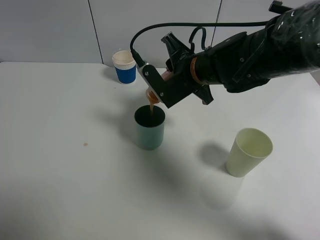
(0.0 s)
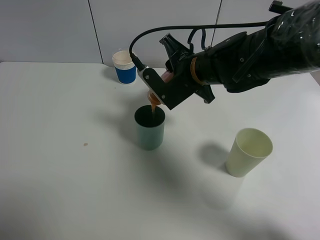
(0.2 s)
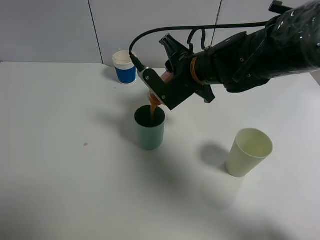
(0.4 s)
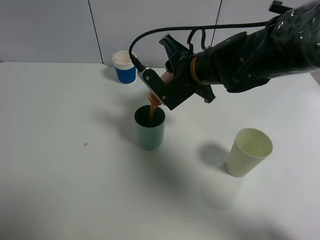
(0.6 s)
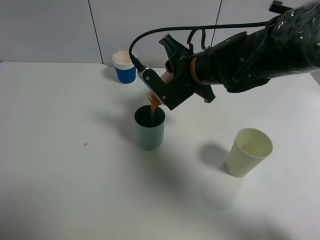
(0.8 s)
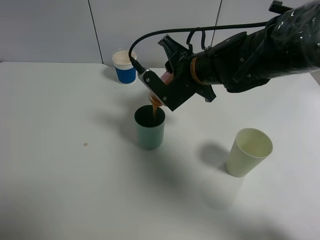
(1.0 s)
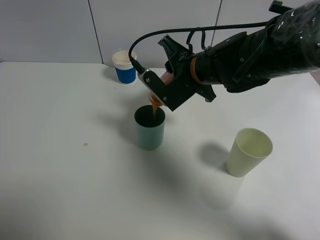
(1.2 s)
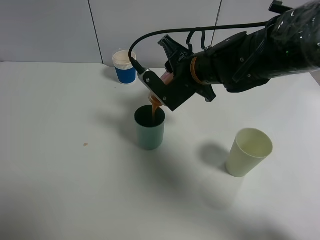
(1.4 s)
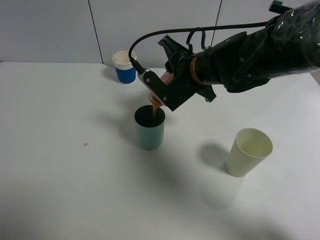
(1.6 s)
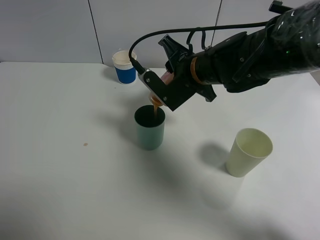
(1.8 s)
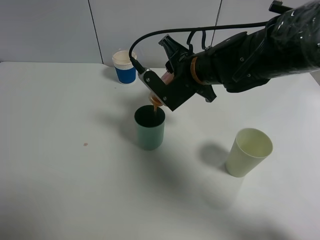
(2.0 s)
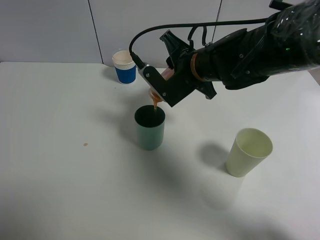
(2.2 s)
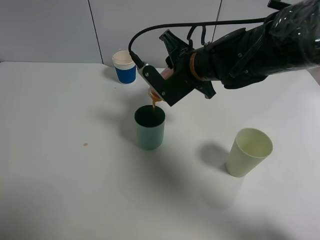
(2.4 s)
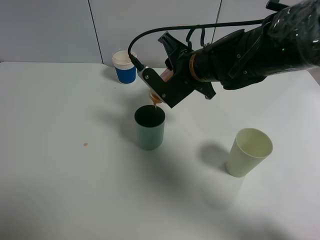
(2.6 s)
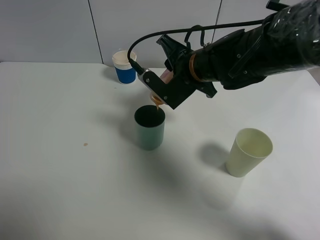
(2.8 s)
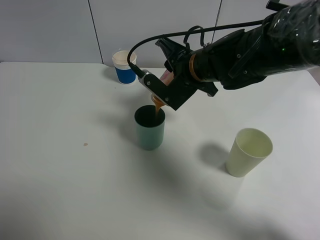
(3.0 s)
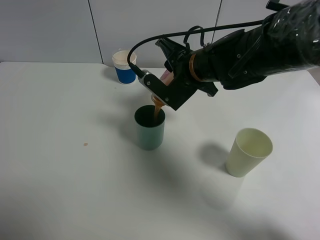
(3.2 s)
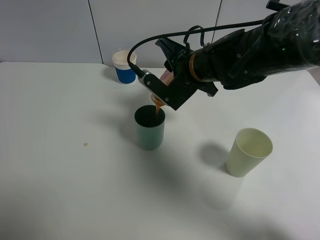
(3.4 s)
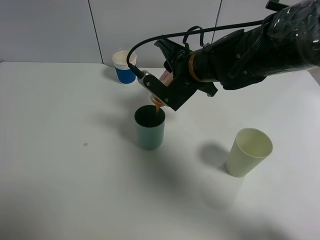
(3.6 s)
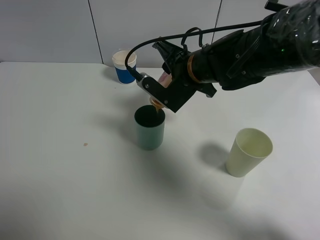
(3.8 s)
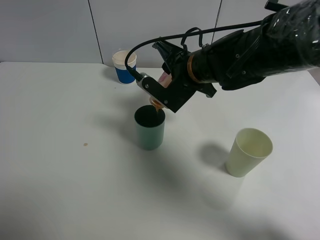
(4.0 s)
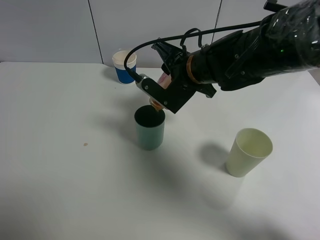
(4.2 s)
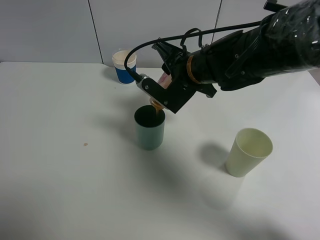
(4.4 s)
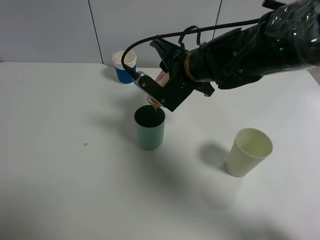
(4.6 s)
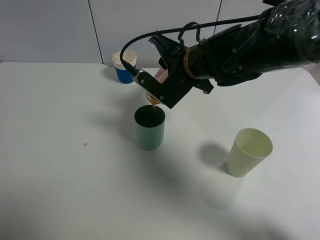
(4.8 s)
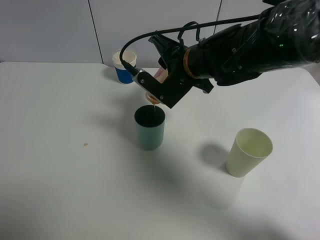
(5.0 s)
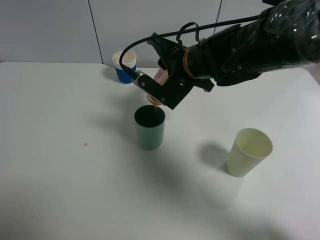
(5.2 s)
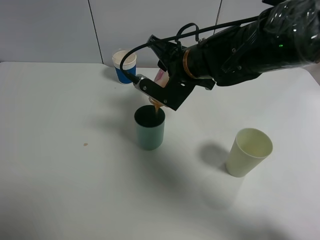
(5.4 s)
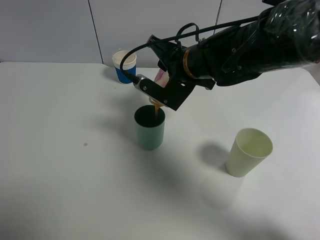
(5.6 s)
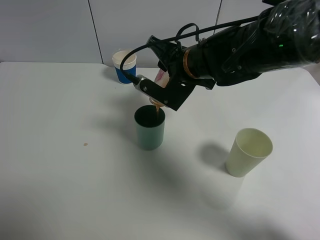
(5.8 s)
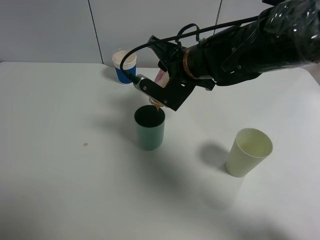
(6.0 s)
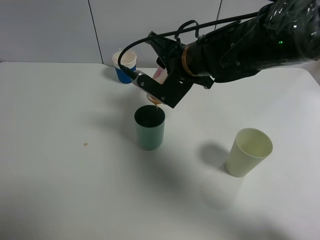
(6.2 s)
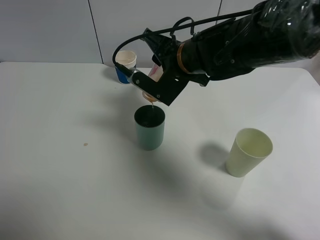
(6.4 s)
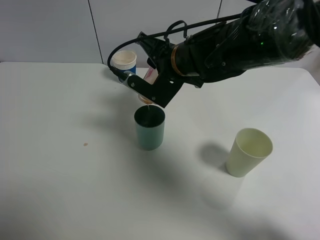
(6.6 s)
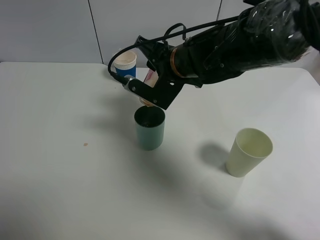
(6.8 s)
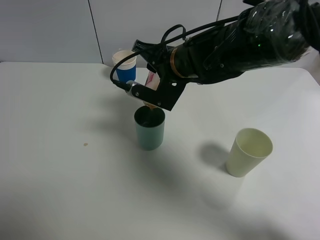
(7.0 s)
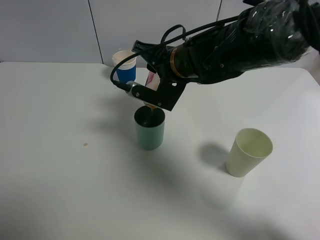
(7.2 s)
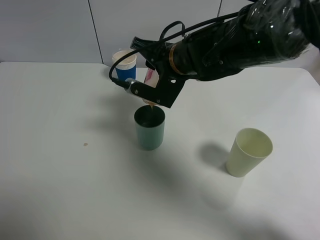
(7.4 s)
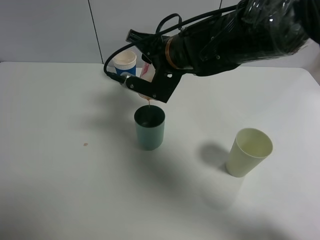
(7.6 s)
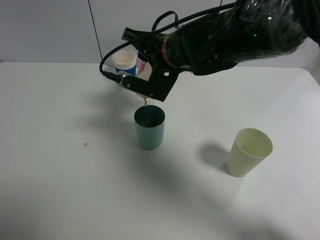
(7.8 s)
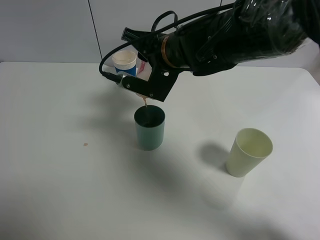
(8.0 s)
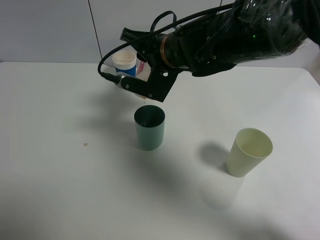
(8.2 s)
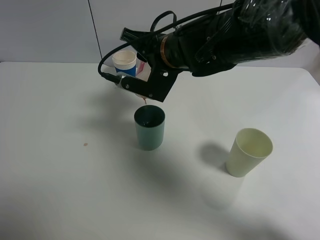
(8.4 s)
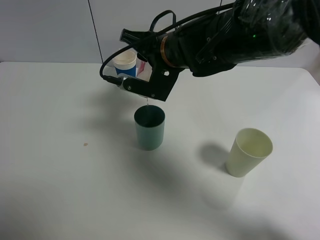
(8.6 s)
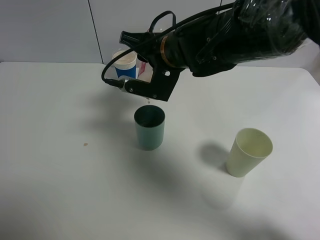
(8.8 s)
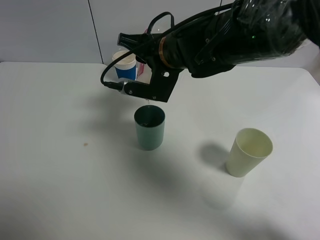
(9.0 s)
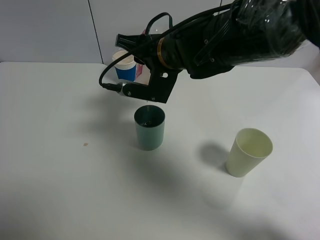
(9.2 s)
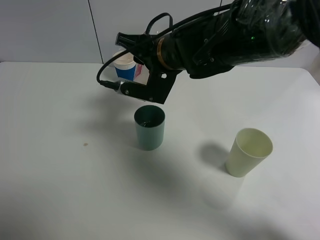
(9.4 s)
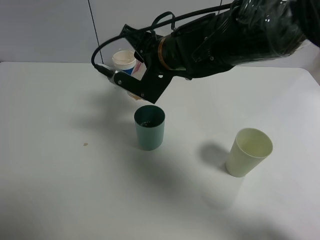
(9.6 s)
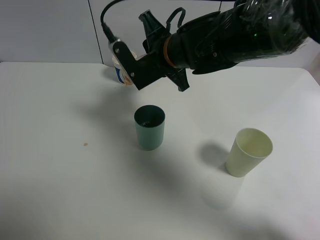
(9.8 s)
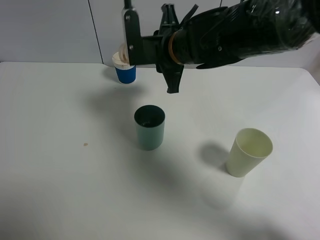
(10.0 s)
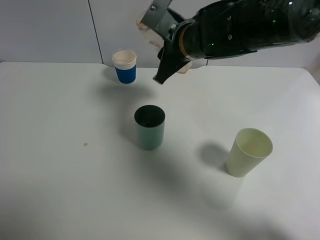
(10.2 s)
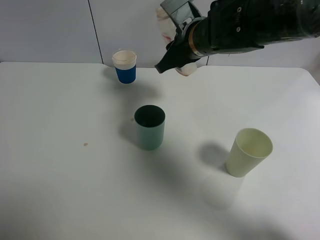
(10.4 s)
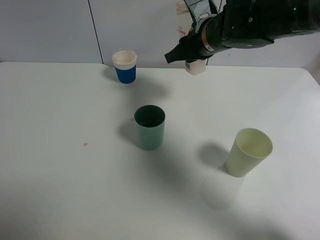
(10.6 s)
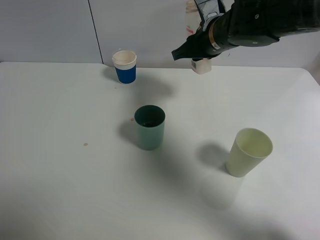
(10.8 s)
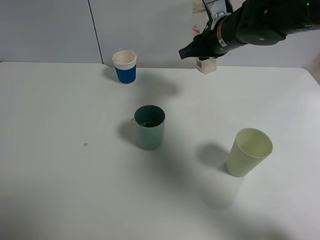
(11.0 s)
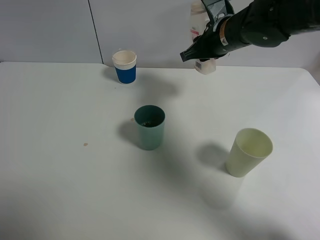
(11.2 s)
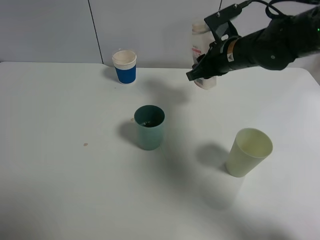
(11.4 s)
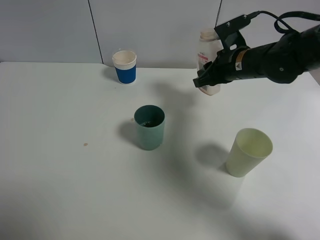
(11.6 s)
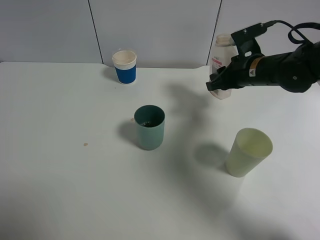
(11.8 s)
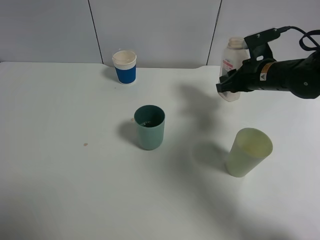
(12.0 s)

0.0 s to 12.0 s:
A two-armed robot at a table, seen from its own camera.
Task of the whole recording: use a gripper to hold the bottle of the drink and pour it into a random cup.
Step, 0.0 to 9.6 s: Pour the cranberry juice into the cyan cup with the right gripper.
0.0 to 3.0 s: The grippers stay close to where they were, moving slightly.
3.0 to 4.4 s: Both grippers stay put.
4.4 to 7.6 s: There are only small adjustments of the grippers.
7.6 to 9.0 s: The grippers stay close to where they were, moving slightly.
9.0 to 10.4 s: The right gripper shifts about 5 cm to the right.
10.4 to 12.0 s: The right gripper shifts some 15 cm to the right and downward.

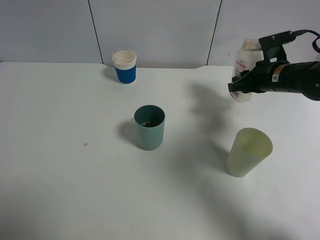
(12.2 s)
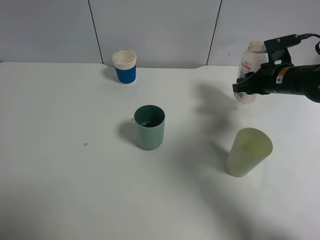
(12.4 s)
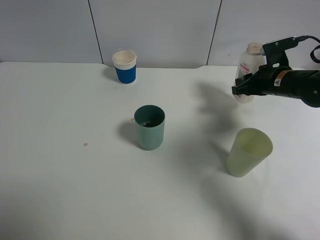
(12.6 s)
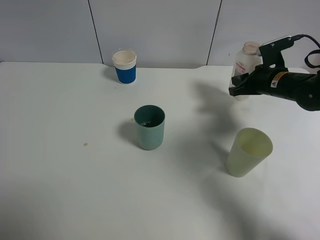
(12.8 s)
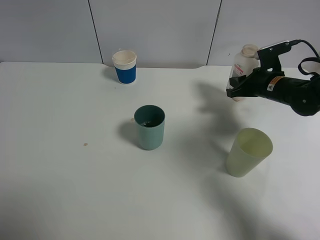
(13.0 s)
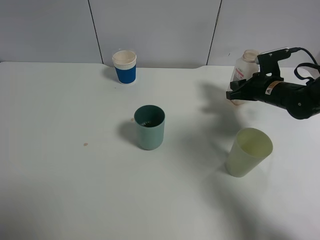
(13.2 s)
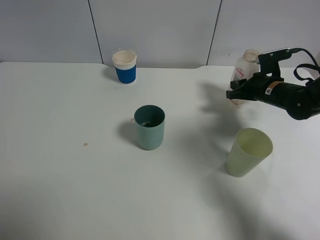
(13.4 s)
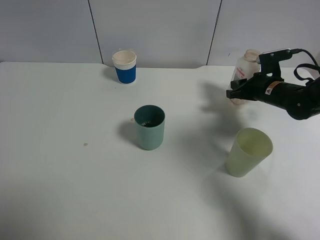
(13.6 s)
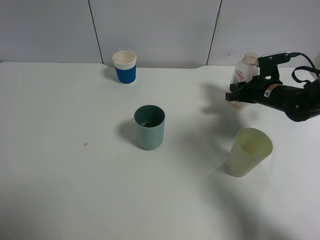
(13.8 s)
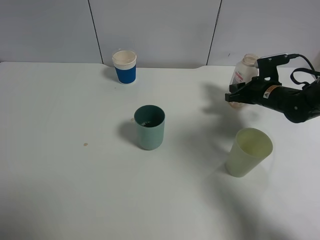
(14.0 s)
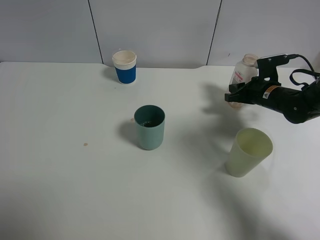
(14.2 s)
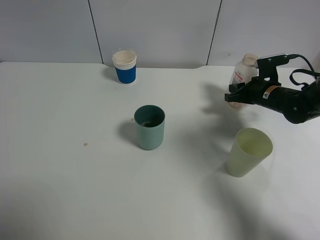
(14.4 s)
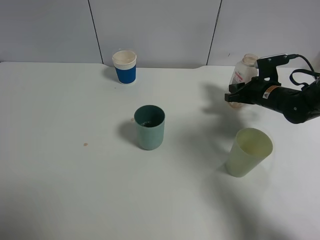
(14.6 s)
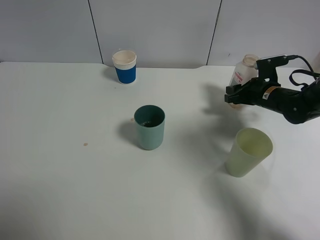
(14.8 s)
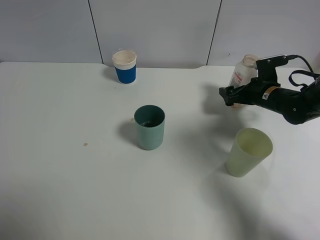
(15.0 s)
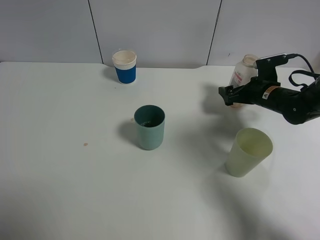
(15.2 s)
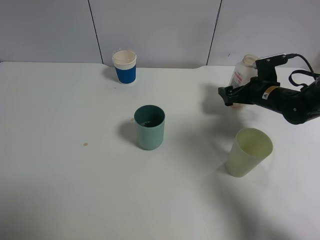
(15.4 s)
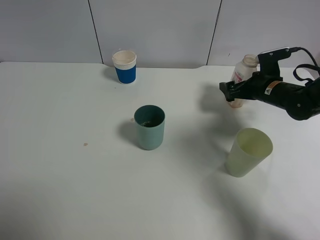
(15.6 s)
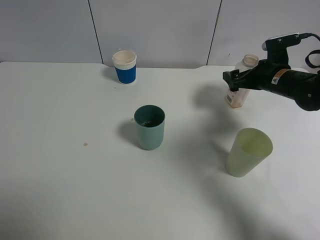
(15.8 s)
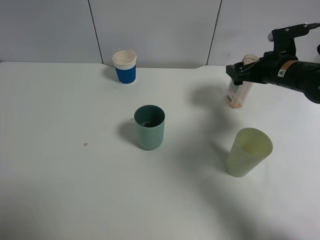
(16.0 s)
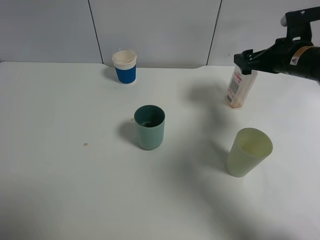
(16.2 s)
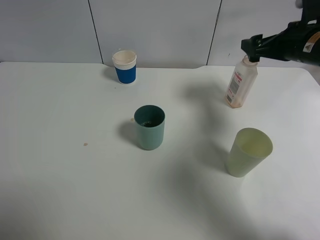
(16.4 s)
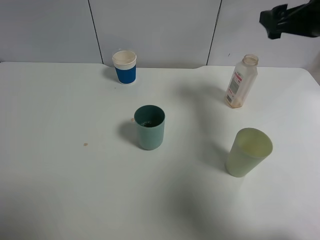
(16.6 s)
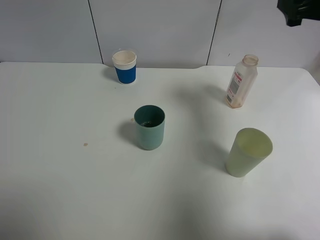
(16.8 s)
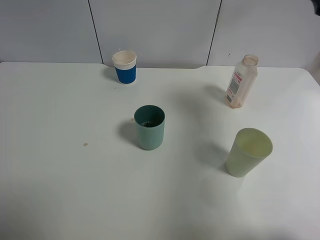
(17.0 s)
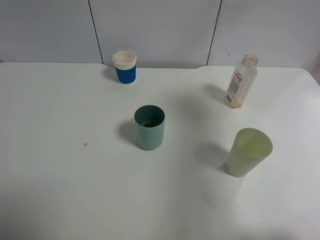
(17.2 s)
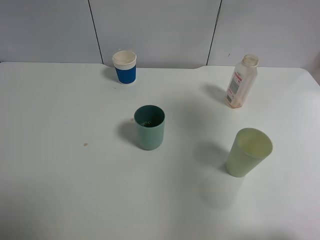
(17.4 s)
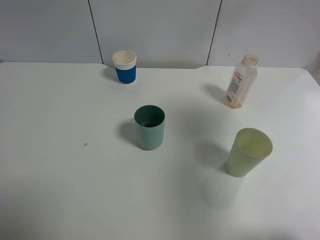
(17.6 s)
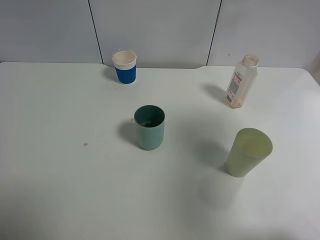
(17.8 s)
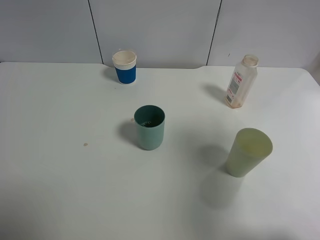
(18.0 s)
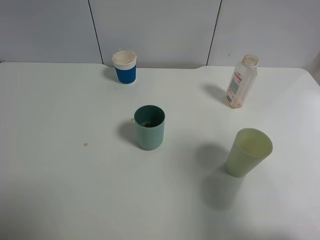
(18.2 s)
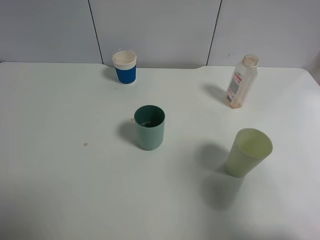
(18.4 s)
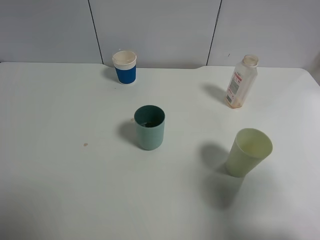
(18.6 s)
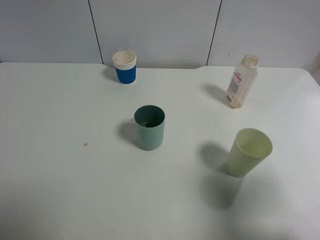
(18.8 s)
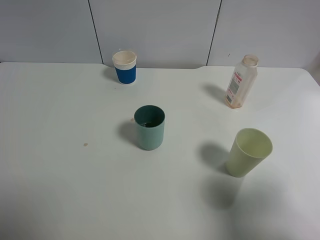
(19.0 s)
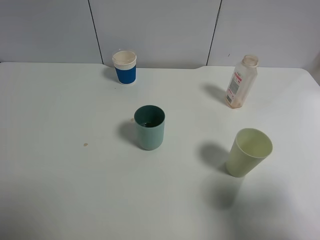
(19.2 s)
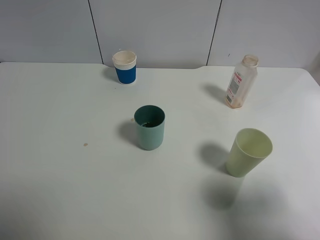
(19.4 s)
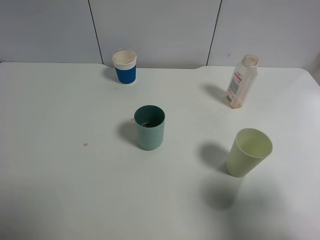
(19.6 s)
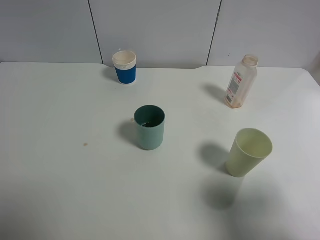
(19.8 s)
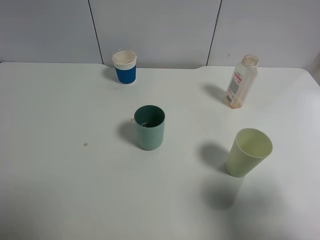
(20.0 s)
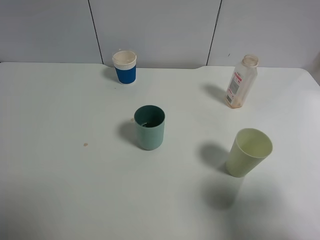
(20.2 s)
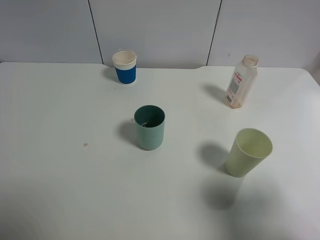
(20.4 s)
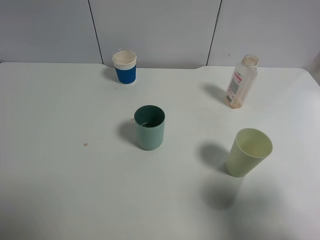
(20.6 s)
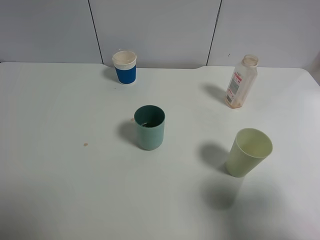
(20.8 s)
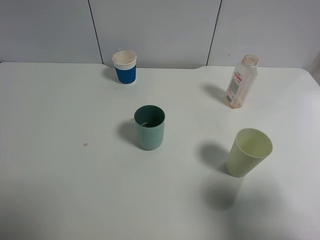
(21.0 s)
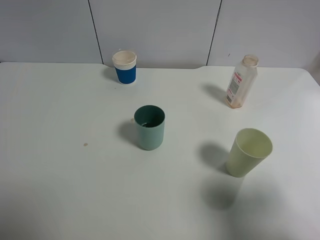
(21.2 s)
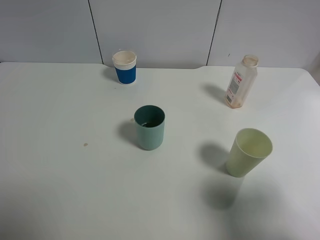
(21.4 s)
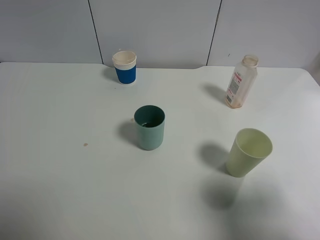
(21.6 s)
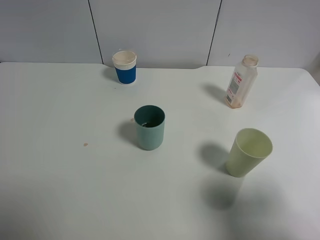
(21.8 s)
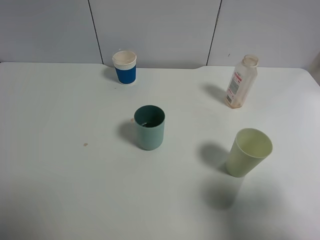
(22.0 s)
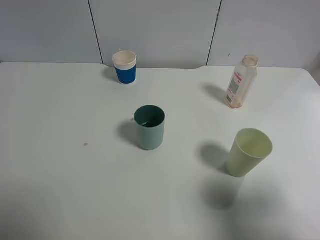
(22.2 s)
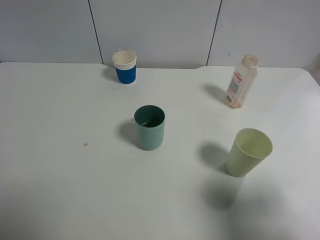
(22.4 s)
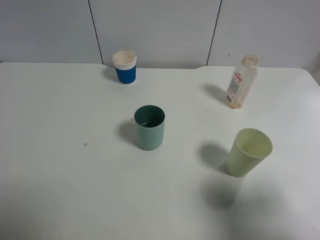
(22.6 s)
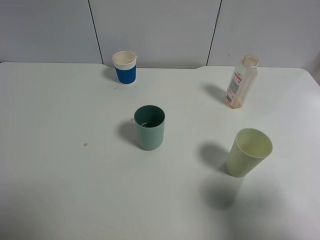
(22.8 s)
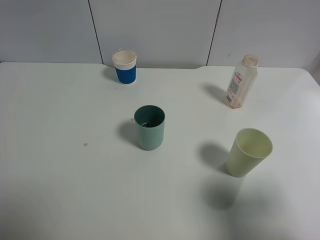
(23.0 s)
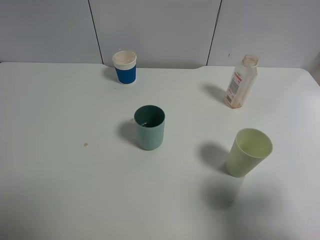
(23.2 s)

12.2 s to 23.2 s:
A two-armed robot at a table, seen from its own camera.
Task of the whole recording: use a gripper to hold the bottle of the drink and pour it into a random cup.
Step, 12.2 to 15.2 s: Place the cranberry juice bottle on the table with the right gripper.
12.2 to 13.8 s: The right gripper goes approximately 5 cm downward.
13.8 to 15.4 s: The right gripper opens its fingers.
15.4 to 17.0 s: The right gripper shifts approximately 30 cm upward and backward.
17.0 to 18.4 s: The right gripper heads backward, covering about 20 cm.
18.4 to 20.0 s: The right gripper changes place by some 5 cm.
20.0 to 23.2 s: Both grippers stay about where they are.
